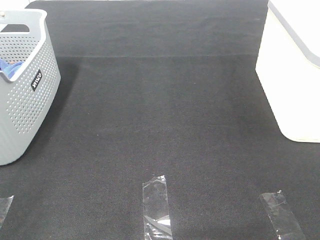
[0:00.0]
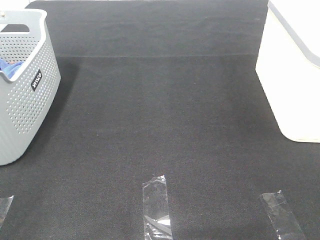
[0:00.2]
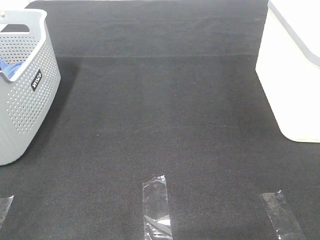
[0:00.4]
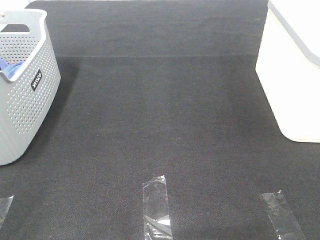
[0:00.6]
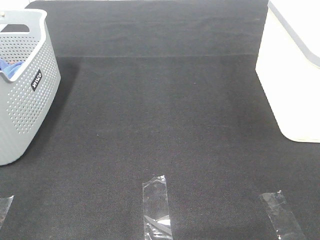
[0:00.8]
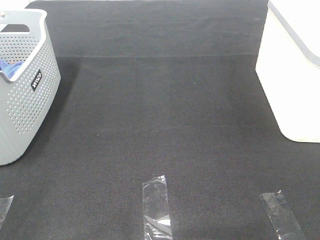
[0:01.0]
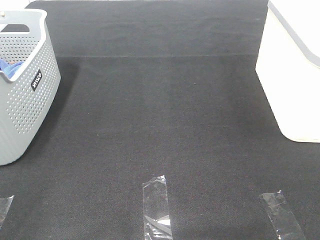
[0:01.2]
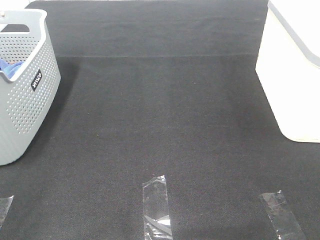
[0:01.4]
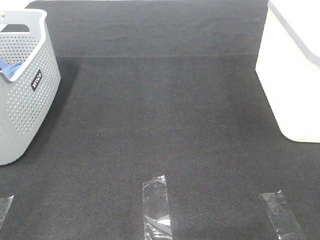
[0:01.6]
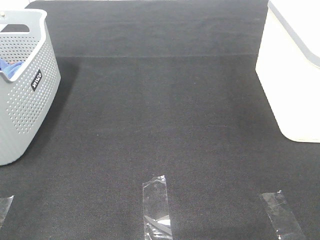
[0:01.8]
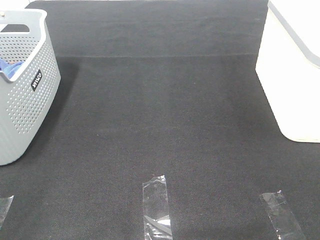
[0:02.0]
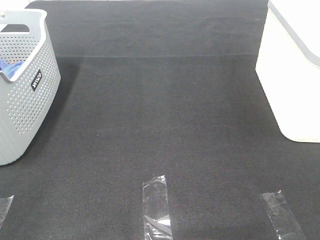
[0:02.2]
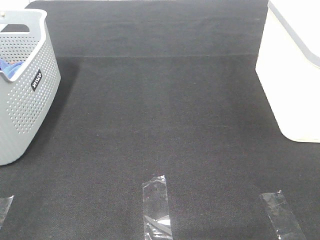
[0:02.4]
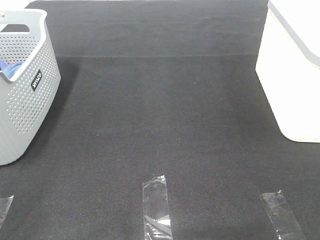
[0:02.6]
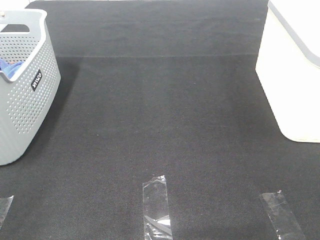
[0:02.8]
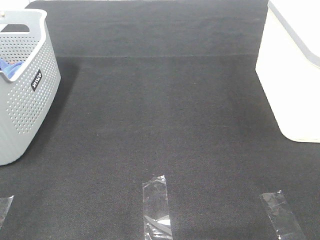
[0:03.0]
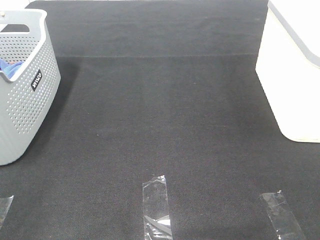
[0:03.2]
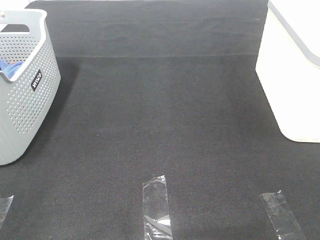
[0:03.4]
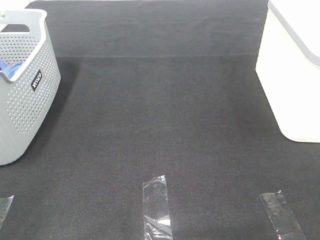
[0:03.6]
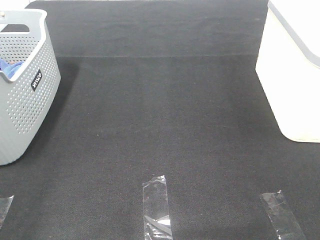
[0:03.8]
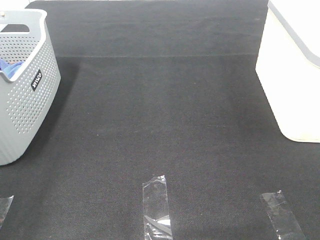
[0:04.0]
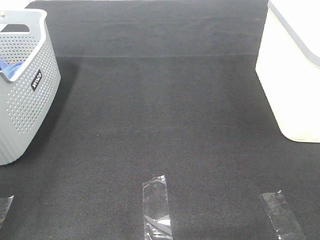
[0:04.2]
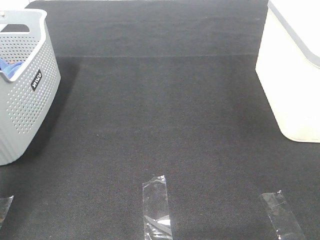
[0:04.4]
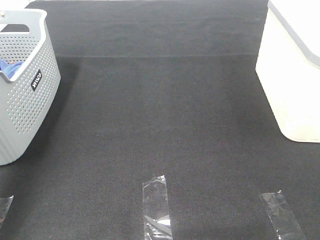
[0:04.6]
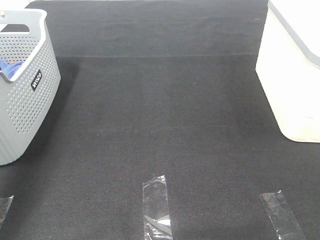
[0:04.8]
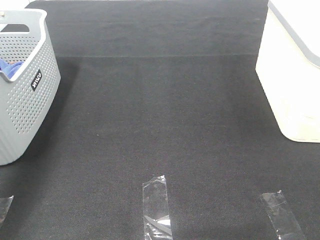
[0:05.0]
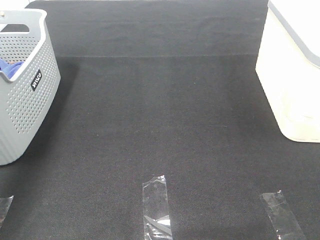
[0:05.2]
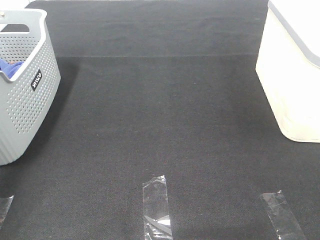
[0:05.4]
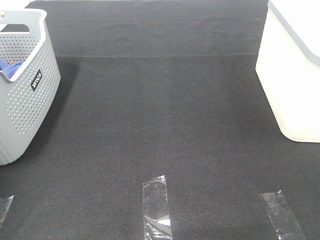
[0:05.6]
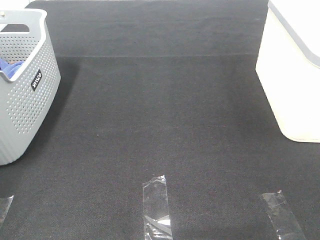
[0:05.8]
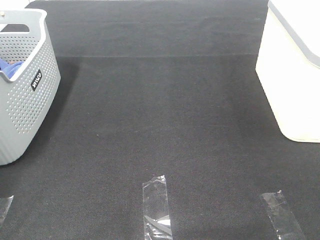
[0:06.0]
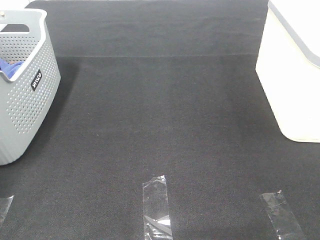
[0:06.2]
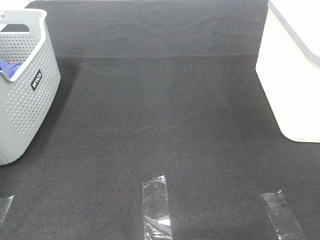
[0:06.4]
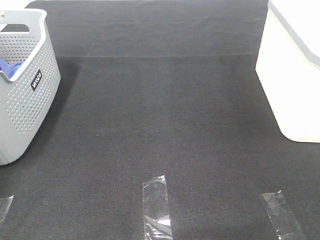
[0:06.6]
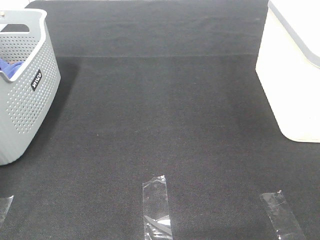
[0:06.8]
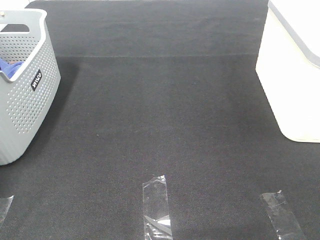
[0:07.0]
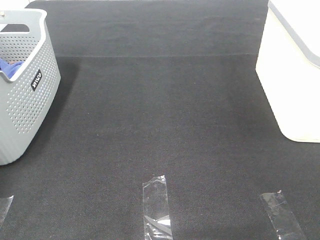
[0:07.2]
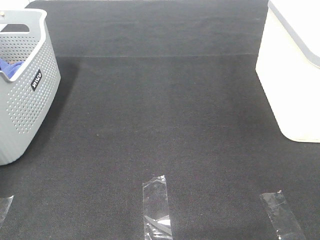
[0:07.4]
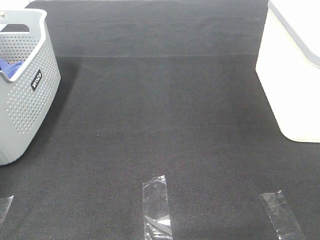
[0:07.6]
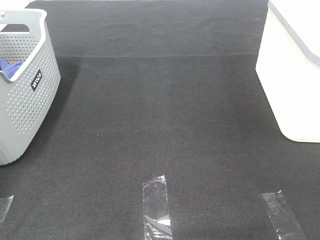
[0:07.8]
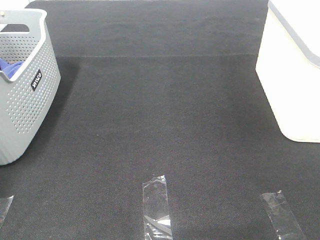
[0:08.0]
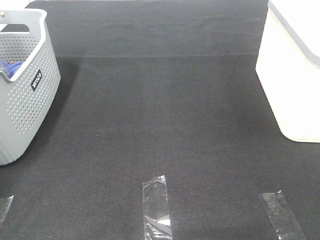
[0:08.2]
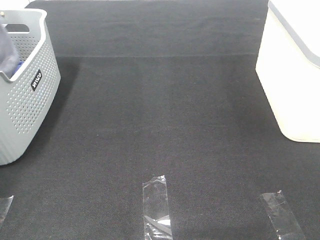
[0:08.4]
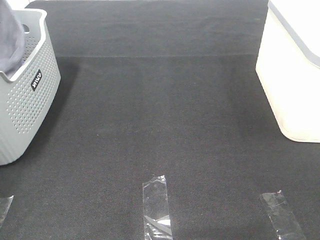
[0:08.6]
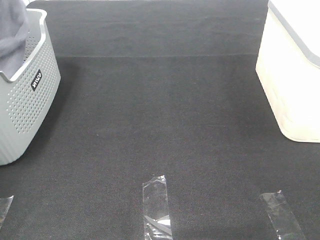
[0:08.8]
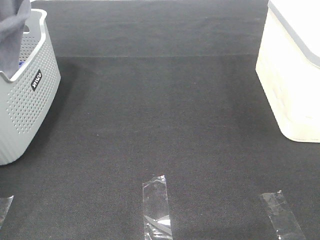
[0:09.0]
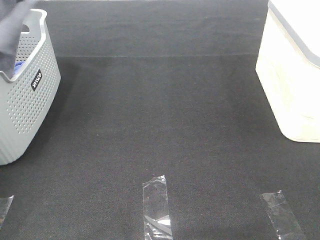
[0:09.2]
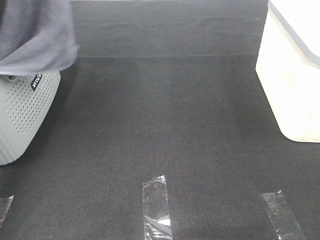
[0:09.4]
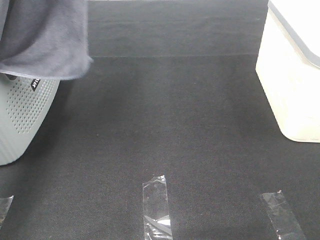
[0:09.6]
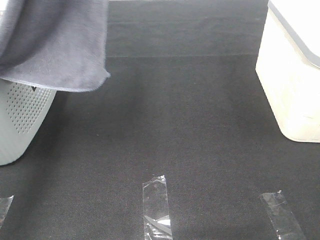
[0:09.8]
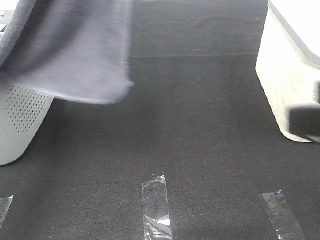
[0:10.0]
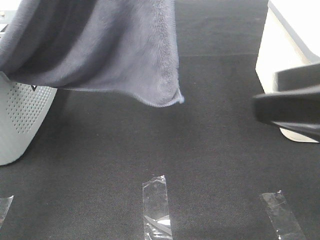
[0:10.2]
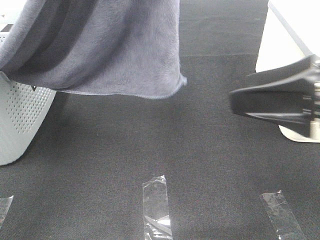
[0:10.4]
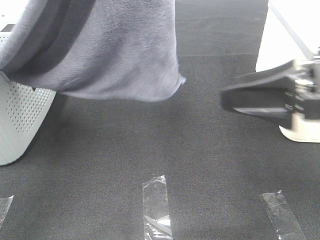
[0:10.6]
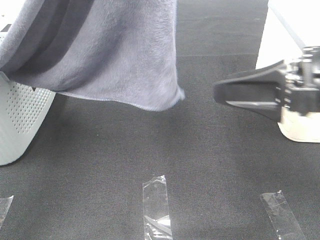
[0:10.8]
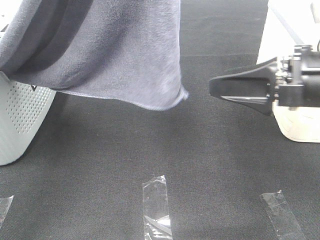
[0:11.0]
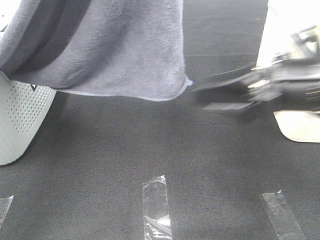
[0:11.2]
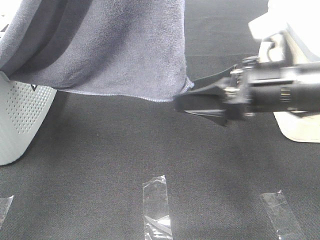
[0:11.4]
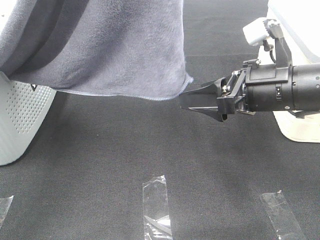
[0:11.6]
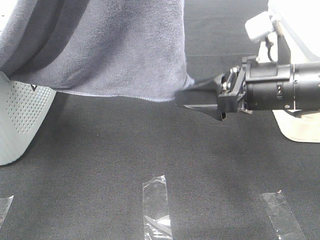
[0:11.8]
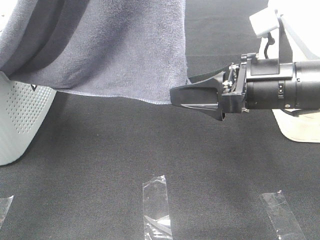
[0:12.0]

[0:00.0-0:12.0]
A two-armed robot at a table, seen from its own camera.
Task of the whole recording: Remove the towel and place it.
0:00.0 to 0:03.0: Both grippers stay about where they are.
0:03.0 to 0:04.4: The left gripper travels forward by approximately 20 cm.
0:04.4 to 0:06.0: The left gripper moves forward, to the left and downward, approximately 30 cm.
0:07.6 to 0:09.0: The left gripper shifts about 20 cm upward.
0:09.0 to 0:10.4: The right gripper travels forward and to the left by about 20 cm. Meanwhile the left gripper shifts about 25 cm to the right and backward.
0:10.4 to 0:12.0: The right gripper heads forward, downward and to the left, covering some 10 cm.

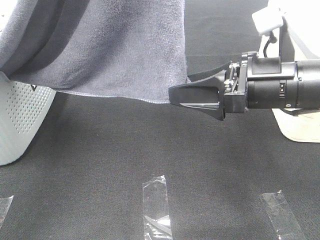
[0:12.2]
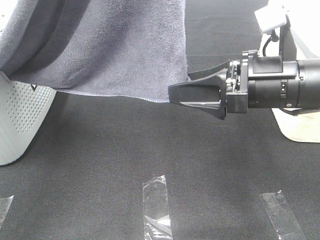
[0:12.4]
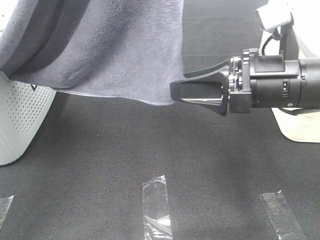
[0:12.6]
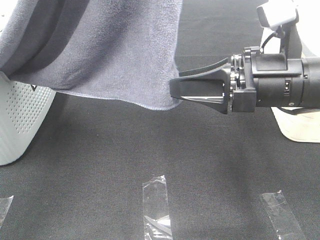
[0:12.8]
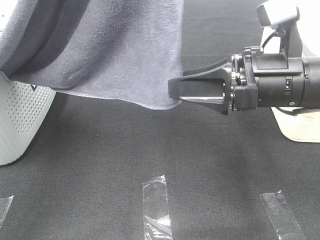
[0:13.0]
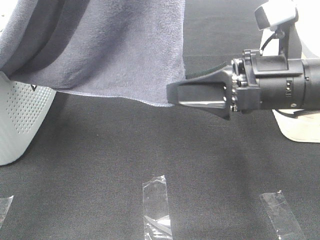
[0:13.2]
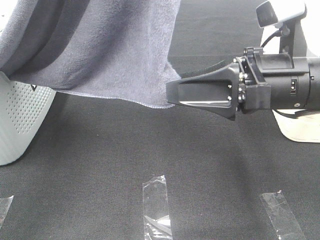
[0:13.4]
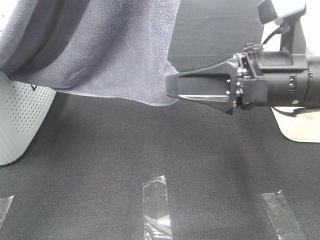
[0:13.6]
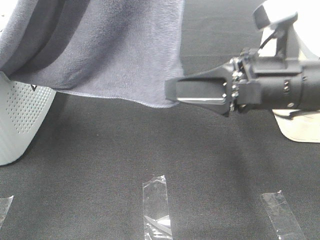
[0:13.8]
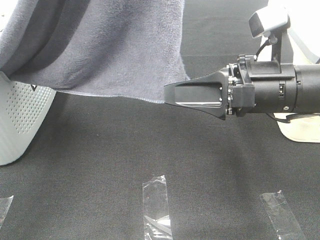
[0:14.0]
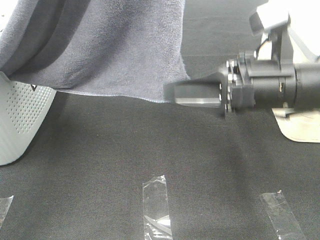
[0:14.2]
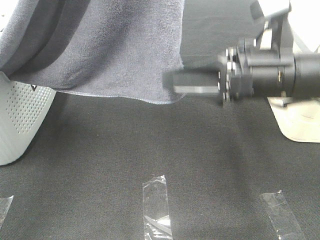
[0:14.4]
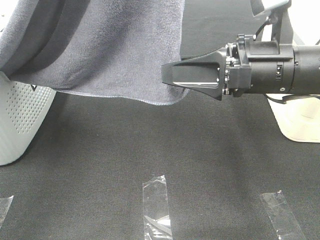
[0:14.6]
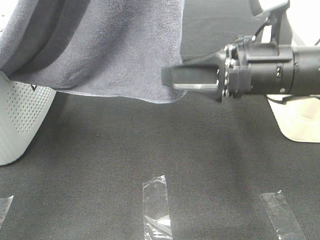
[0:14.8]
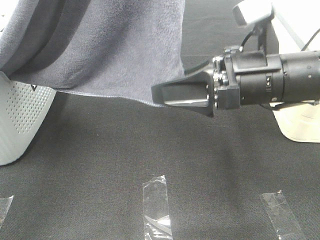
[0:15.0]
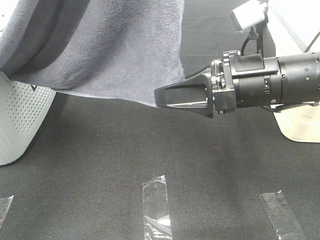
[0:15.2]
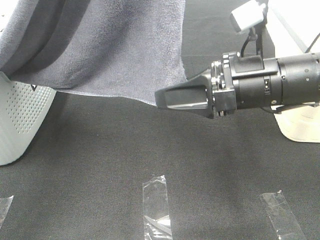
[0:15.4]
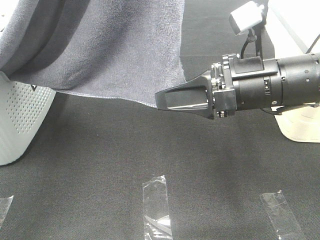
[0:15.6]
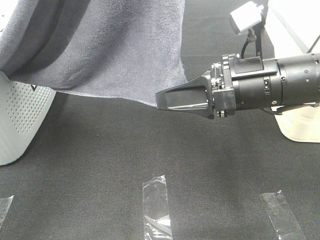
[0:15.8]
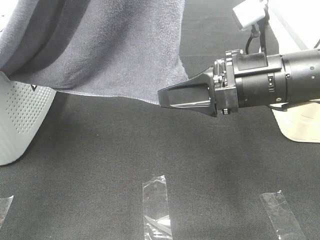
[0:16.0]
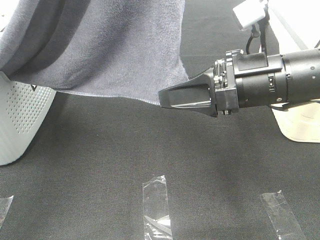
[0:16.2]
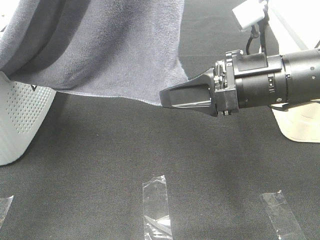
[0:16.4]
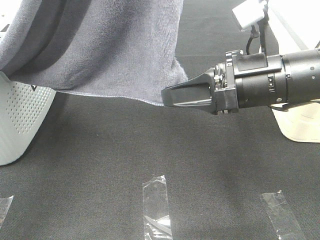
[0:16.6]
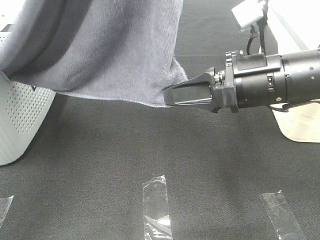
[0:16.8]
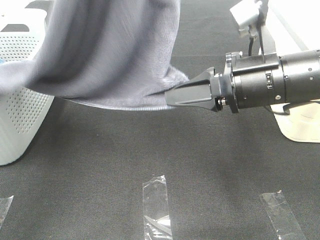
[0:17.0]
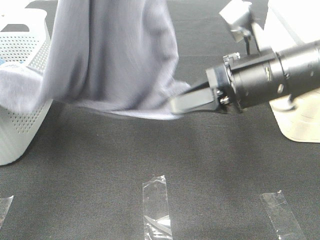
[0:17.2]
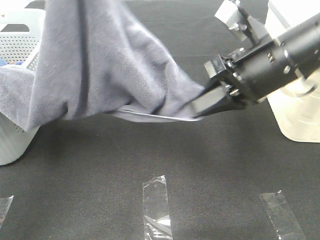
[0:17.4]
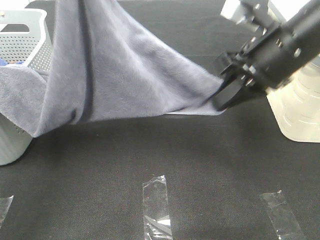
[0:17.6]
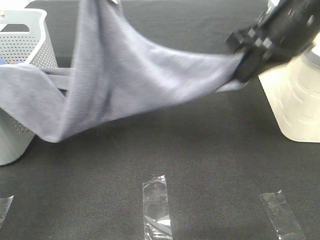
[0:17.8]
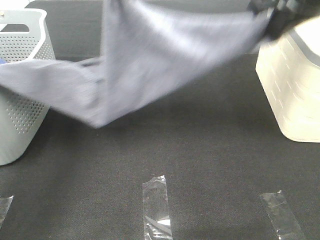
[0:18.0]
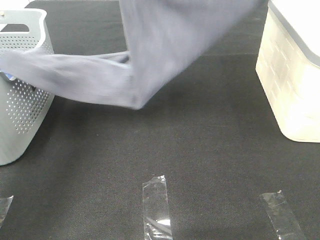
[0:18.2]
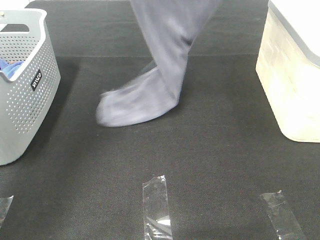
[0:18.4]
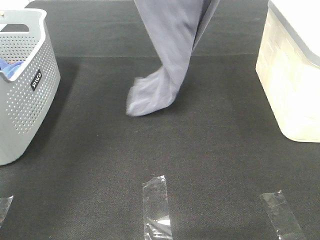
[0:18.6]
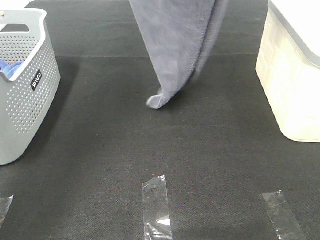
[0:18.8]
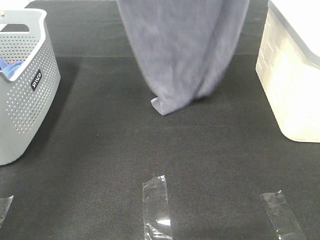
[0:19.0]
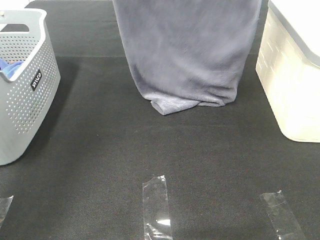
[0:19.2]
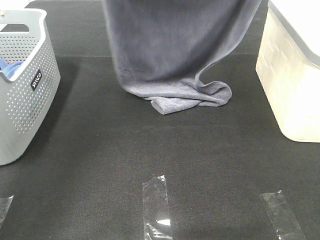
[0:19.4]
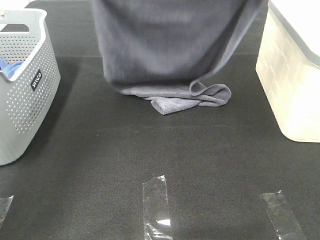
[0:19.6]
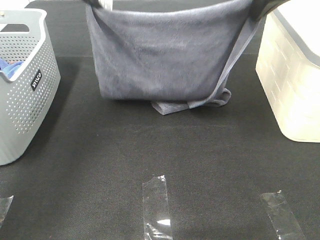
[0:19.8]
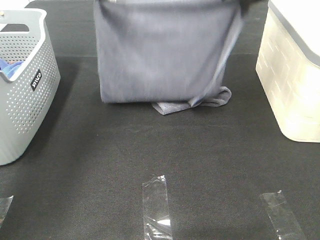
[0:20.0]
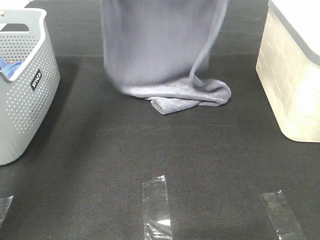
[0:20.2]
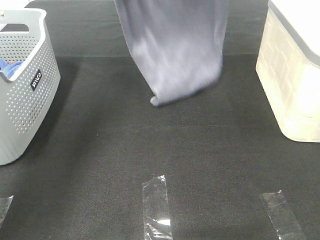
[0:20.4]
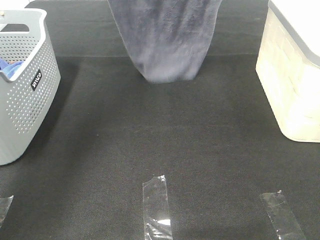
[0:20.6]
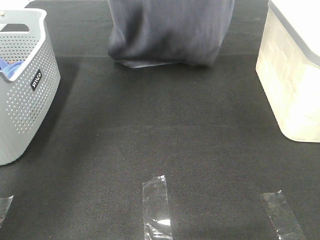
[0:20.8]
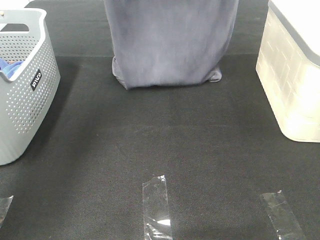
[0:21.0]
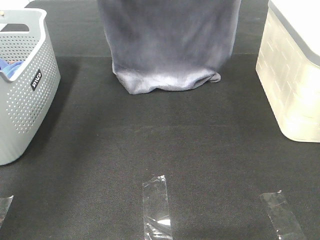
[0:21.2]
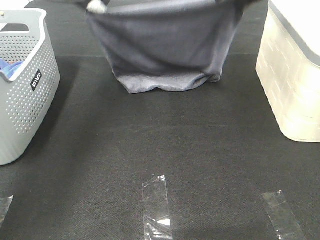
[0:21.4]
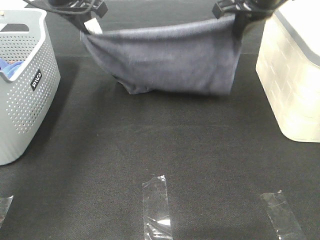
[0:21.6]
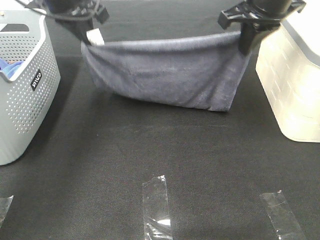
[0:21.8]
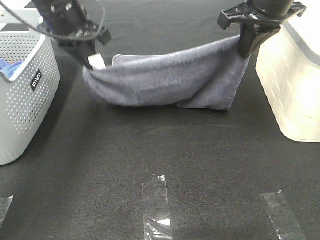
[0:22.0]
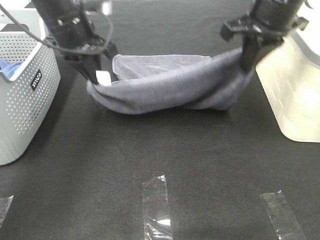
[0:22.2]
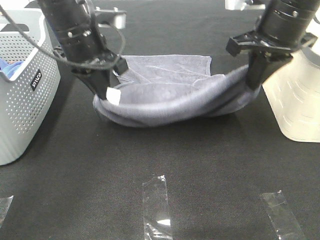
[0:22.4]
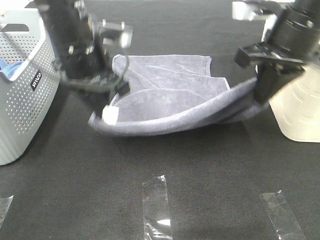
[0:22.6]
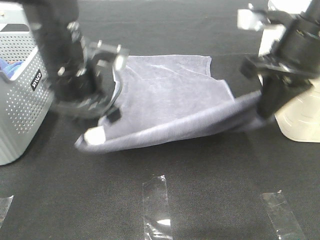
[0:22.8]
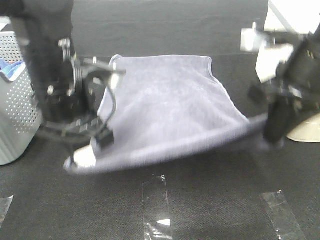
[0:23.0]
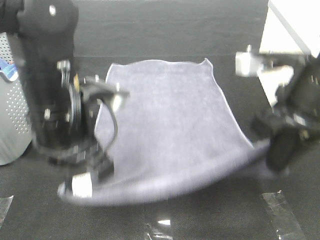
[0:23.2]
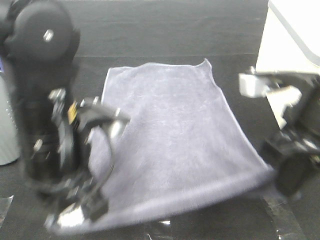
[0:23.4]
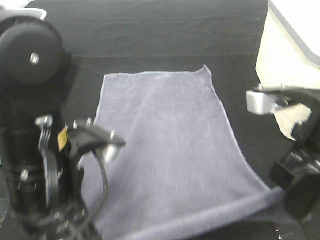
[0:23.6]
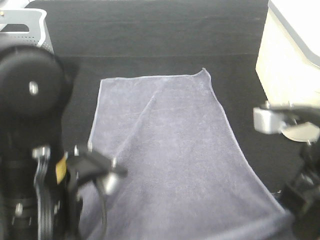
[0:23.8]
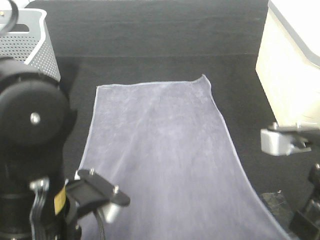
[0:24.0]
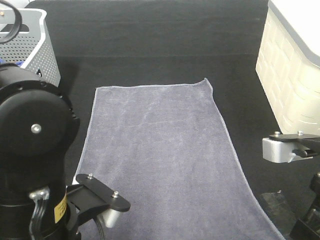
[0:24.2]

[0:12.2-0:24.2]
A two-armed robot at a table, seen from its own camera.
Task of the whole recording: Remove the towel and place it.
Step, 0:12.2 to 0:15.4: Right hand: grab a corner of the grey towel and straighten it.
Step, 0:15.6 to 0:19.8: Left hand: spread the grey towel flat on the table.
Step, 0:15.6 to 0:19.8: Right hand: spread the grey towel flat on the table.
0:12.2 to 0:15.2: The grippers move only a little.
0:15.2 to 0:16.6: The right gripper closes its fingers.
0:16.6 to 0:18.2: The left gripper heads forward and downward, covering roughly 20 cm; the right gripper heads upward and forward, covering roughly 20 cm.
0:18.2 to 0:19.8: The right gripper goes some 5 cm downward. The left gripper reaches some 10 cm upward, then returns.
0:19.8 to 0:21.2: The left gripper goes upward and returns, roughly 10 cm each way; the right gripper travels forward by some 5 cm, and goes upward and returns, some 15 cm each way.
0:21.2 to 0:22.6: Both grippers travel together backward and downward, approximately 15 cm.
0:22.6 to 0:24.2: The grippers both shift backward by about 20 cm.
